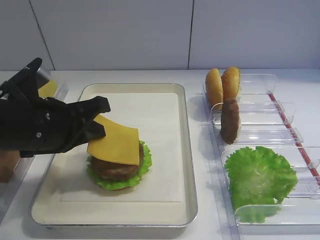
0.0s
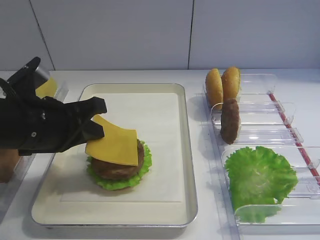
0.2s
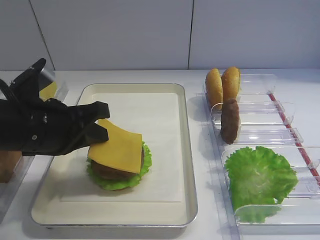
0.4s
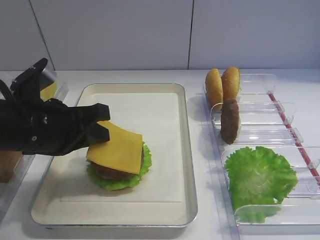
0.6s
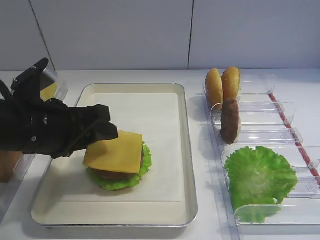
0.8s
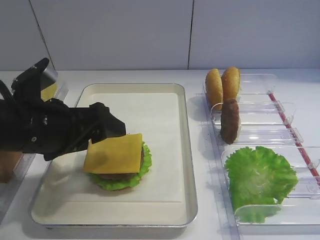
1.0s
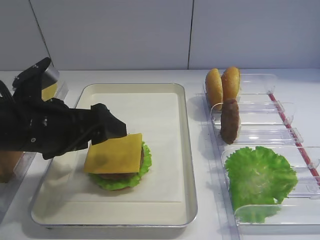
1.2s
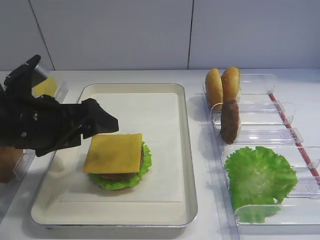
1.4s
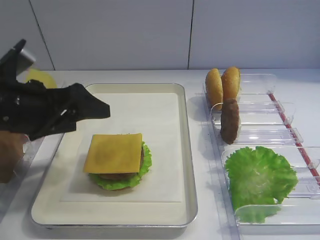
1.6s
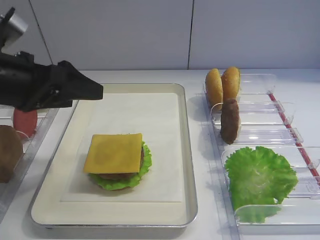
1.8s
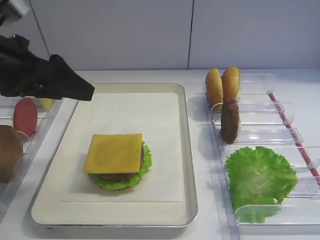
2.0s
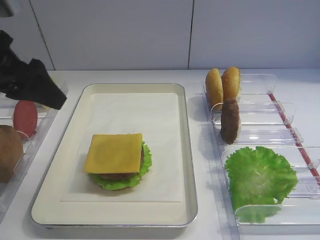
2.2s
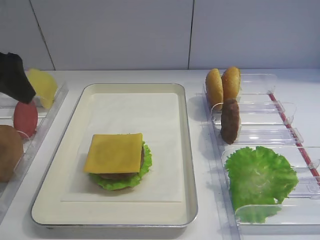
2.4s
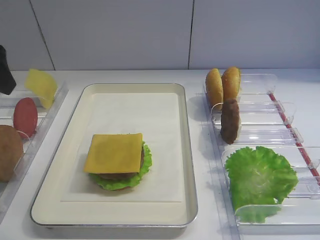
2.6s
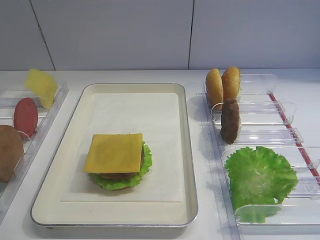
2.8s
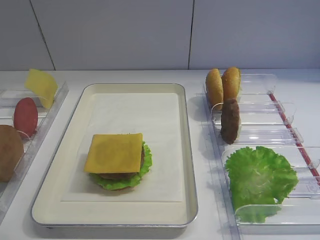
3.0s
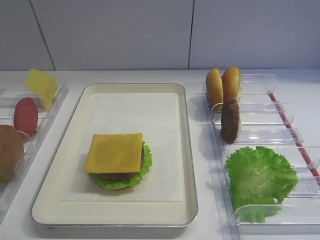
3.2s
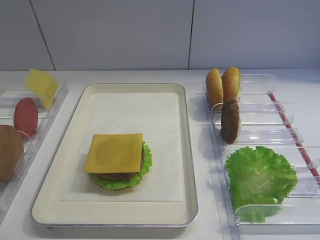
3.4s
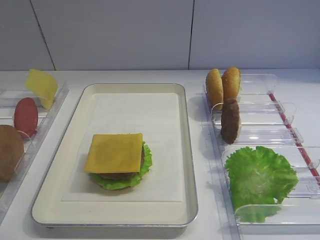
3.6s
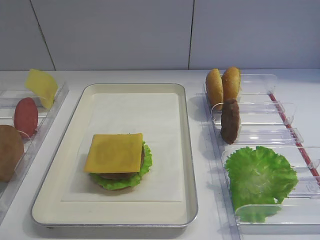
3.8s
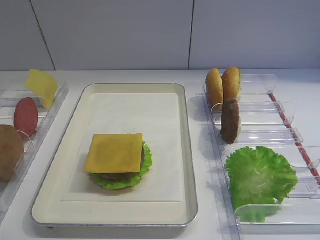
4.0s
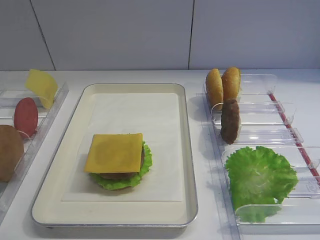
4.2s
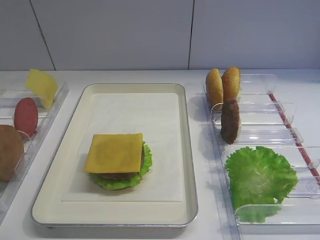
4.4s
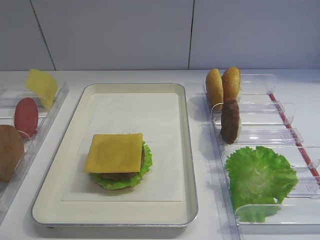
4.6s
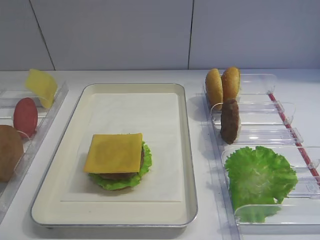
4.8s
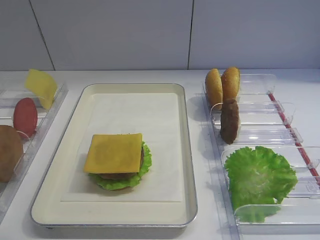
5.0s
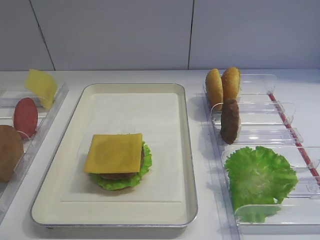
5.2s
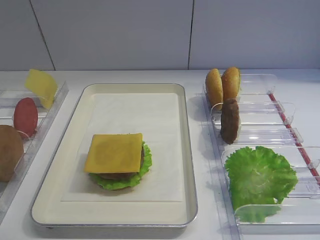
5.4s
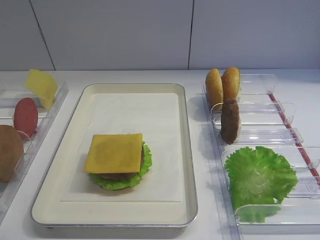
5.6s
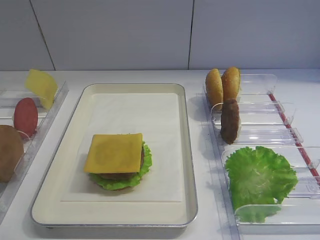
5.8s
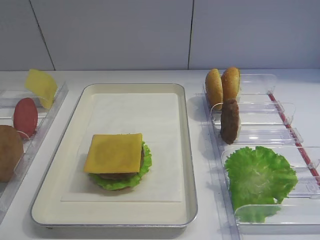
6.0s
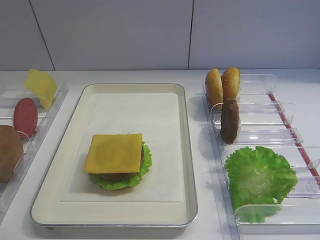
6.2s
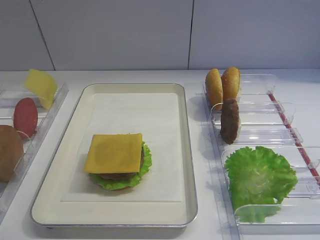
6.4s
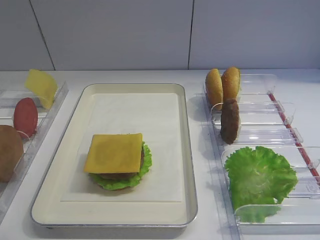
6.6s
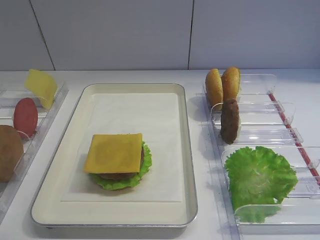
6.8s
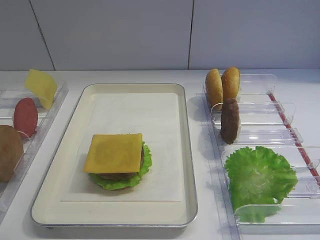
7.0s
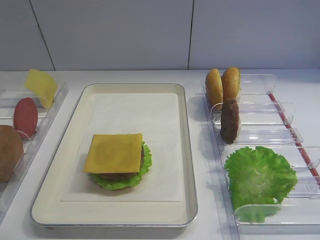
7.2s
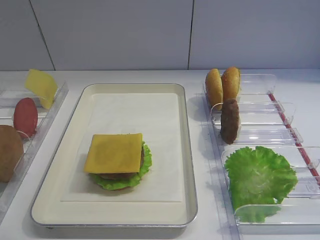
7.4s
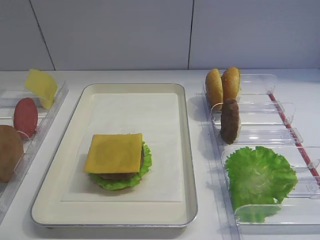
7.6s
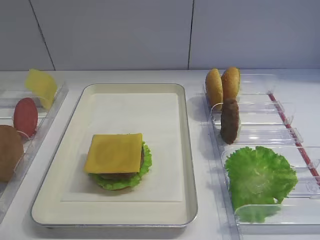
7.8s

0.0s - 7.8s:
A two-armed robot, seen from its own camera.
0.0s - 1.6s: The left gripper opens its fingers.
1.6s - 3.2s: The left gripper shifts about 25 cm upward, backward and to the left.
4.6s - 7.8s: The two grippers keep their place.

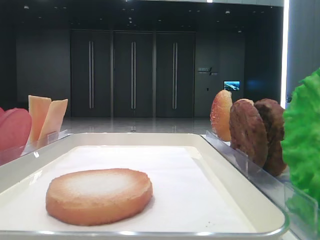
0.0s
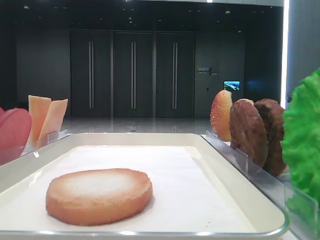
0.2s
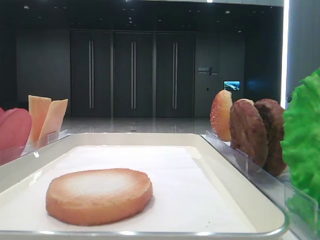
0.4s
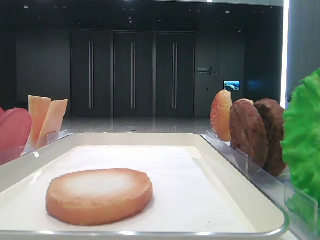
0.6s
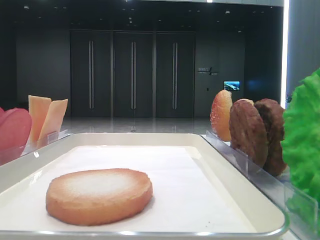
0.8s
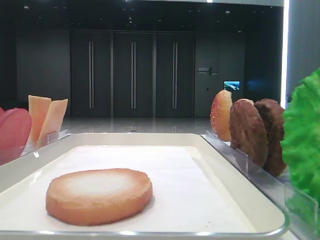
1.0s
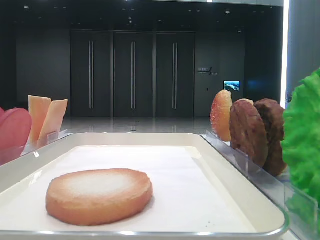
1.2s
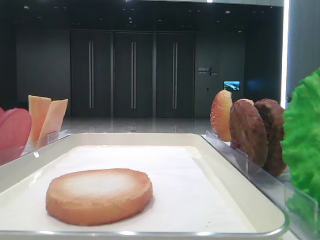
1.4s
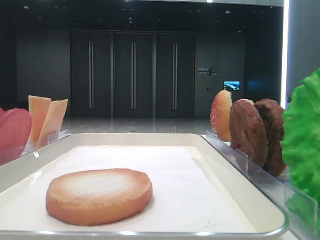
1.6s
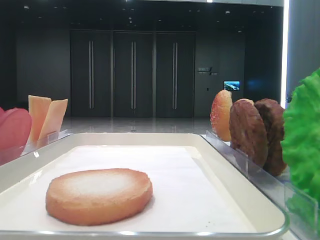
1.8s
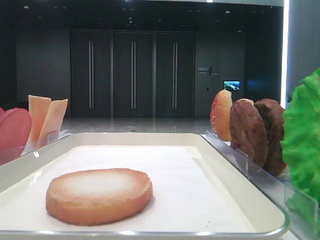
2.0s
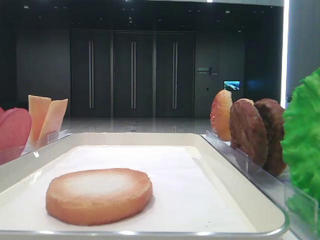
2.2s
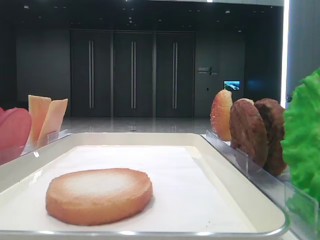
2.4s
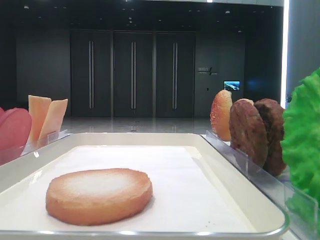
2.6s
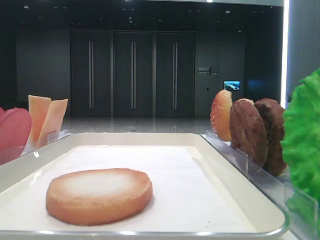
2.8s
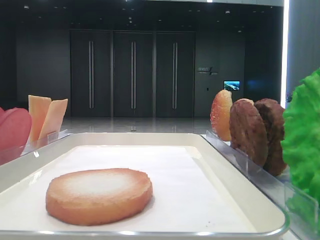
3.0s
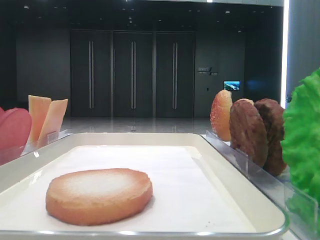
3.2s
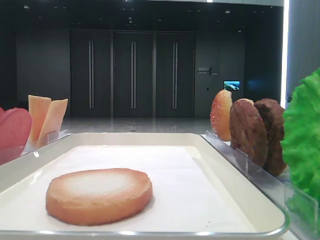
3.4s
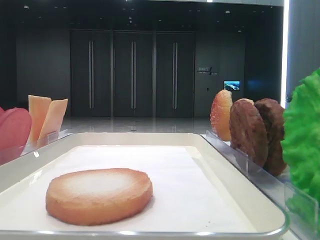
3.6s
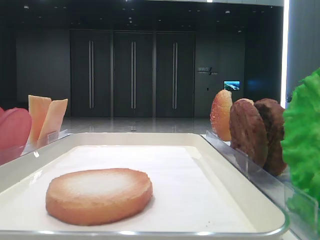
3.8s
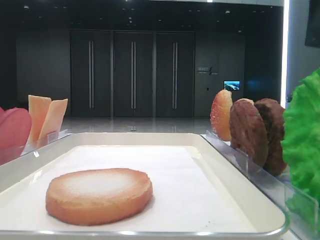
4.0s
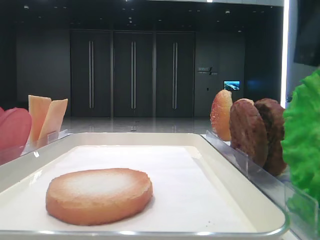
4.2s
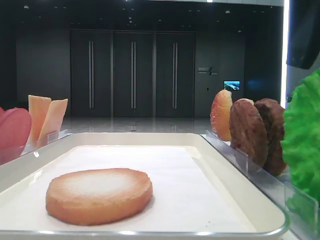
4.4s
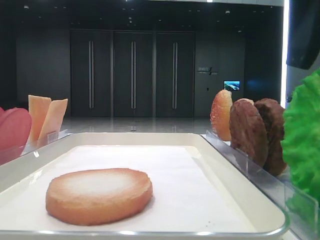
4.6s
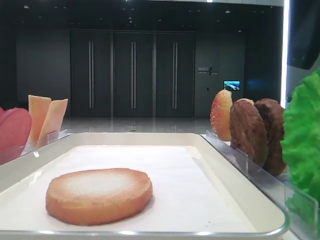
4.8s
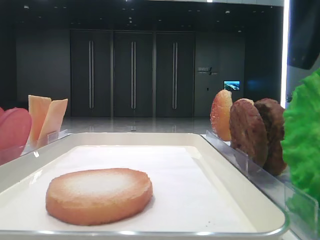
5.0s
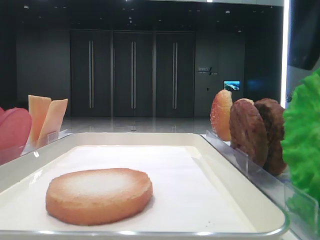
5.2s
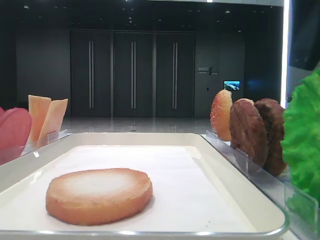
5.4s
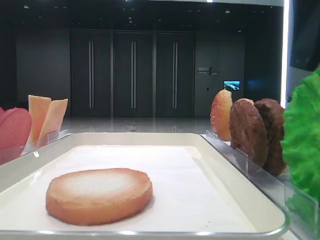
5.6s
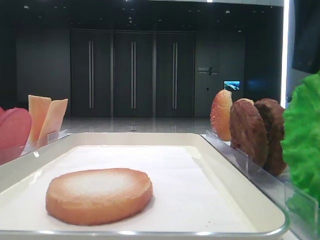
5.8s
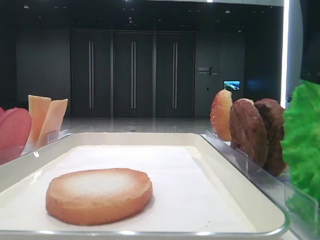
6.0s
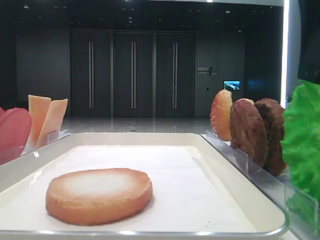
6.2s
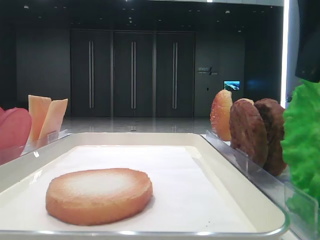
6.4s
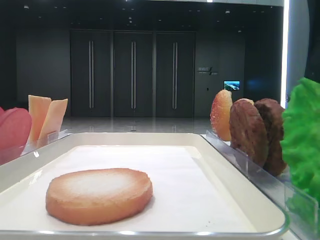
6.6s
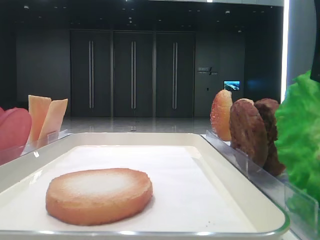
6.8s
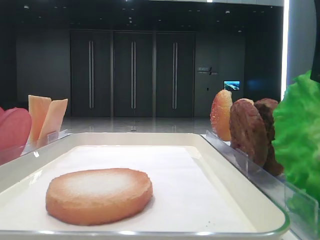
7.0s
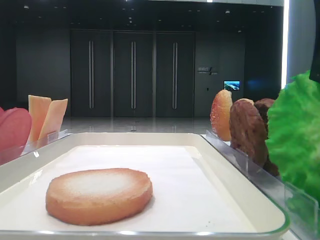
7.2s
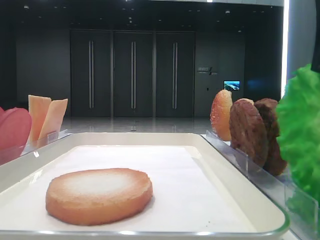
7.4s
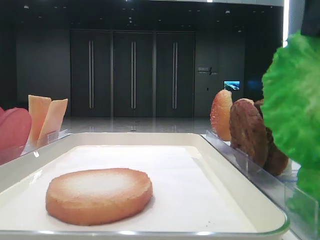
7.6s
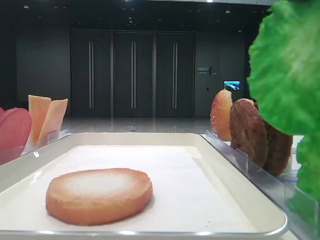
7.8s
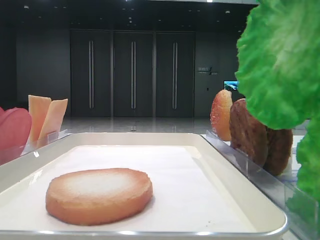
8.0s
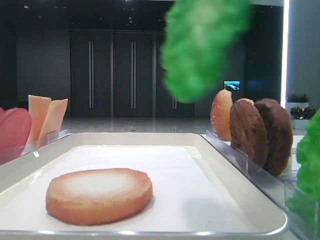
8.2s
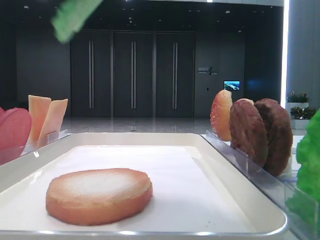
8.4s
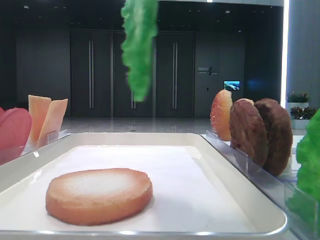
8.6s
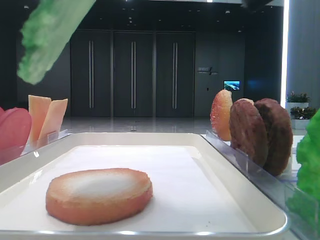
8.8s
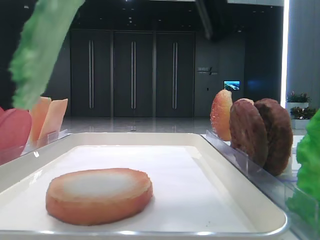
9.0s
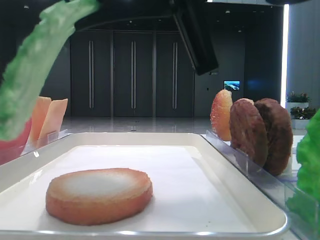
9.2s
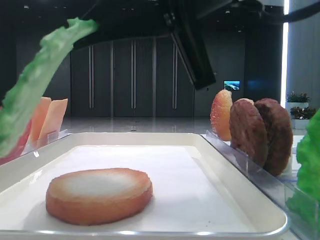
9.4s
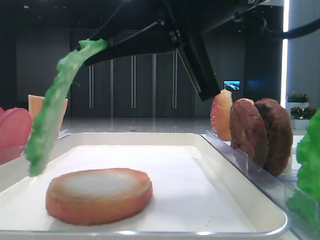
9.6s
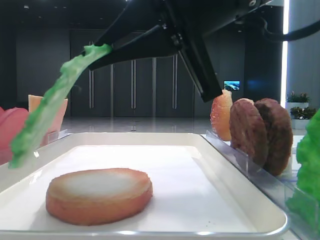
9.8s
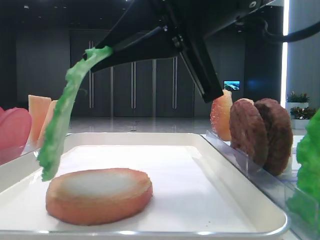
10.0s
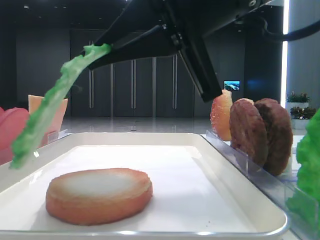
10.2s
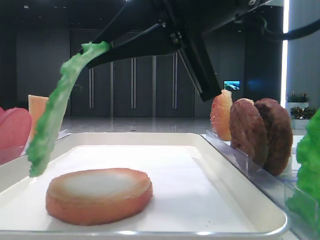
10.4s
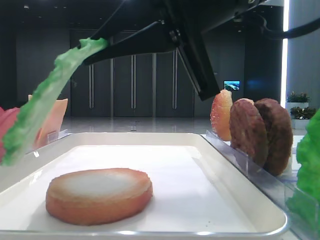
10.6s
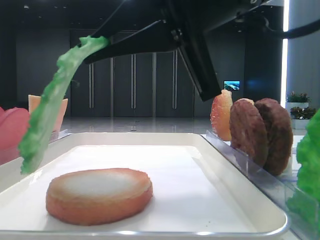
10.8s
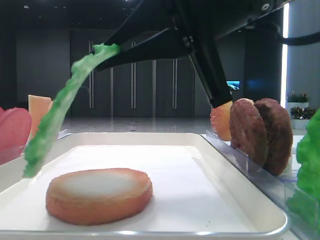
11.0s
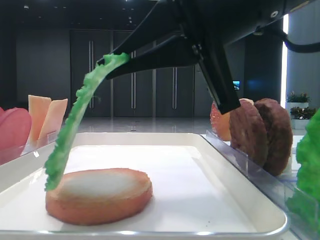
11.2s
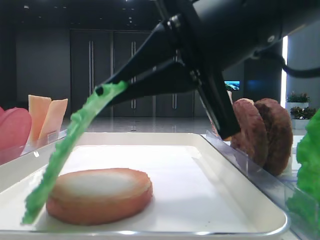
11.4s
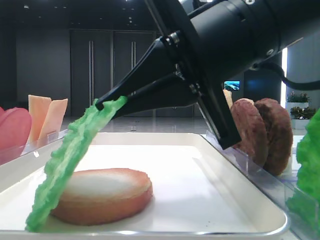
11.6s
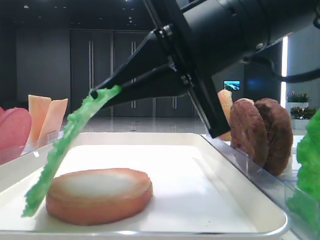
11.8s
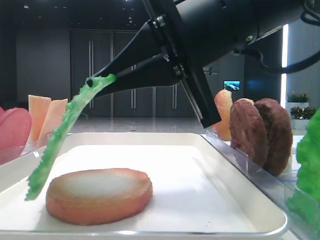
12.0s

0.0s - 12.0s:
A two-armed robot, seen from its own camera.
Step, 0.0s - 7.2s: Grab the lettuce leaf with the right hand.
3.0s - 4.4s: The right gripper moves to the left, downward and forward, some 10 cm.
4.4s - 6.0s: Both grippers stay put.
6.0s - 7.6s: The right gripper closes its fingers.
7.6s - 9.0s: The right gripper moves to the left, about 10 cm.
9.0s - 10.4s: The grippers make only small movements.
10.4s - 12.0s: The grippers move only a little.

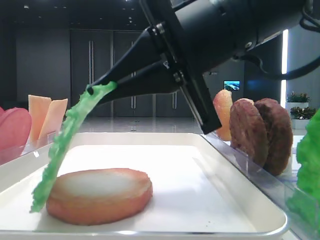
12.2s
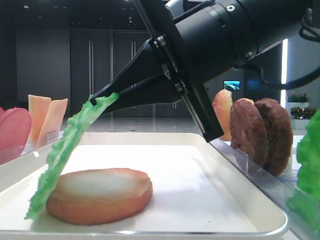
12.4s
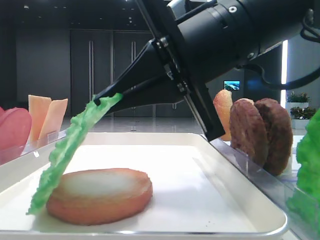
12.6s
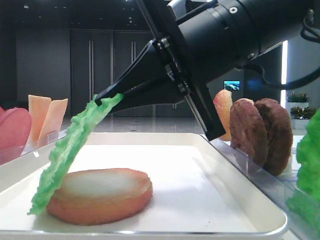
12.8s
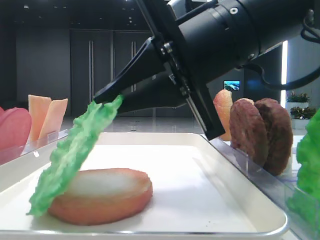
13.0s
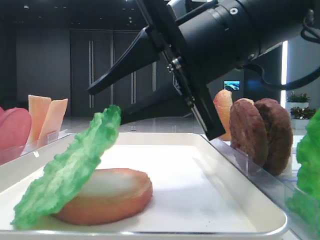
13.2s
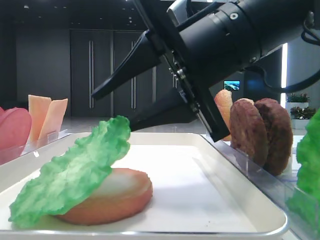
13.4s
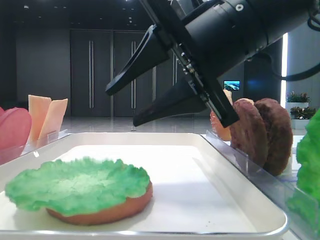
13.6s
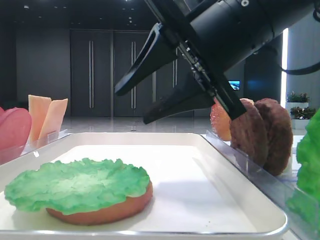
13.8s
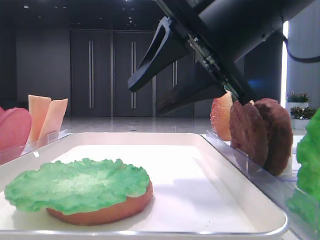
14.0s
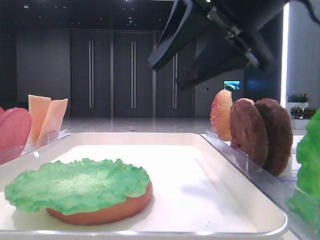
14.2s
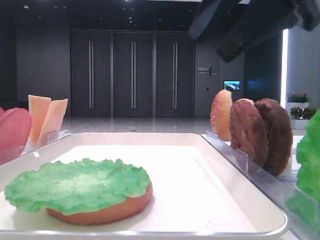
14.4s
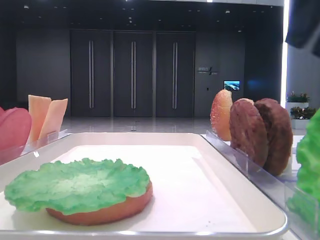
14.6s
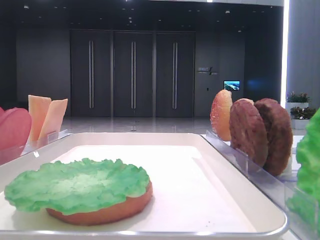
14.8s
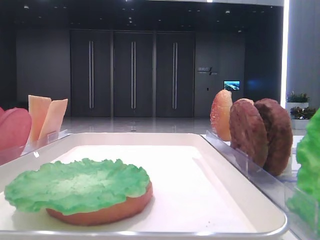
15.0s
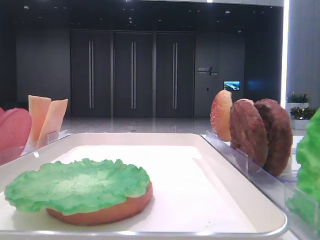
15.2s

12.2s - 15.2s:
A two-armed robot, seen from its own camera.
12.2s - 13.8s: The right gripper opens up.
13.8s - 15.2s: The right gripper travels to the right, backward and upward by roughly 30 cm.
